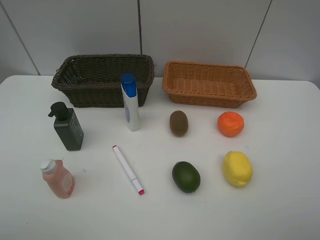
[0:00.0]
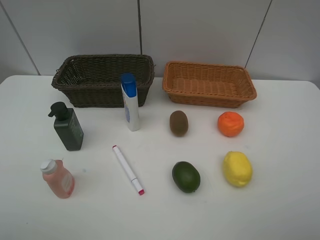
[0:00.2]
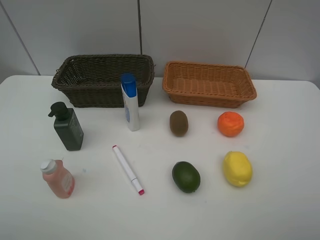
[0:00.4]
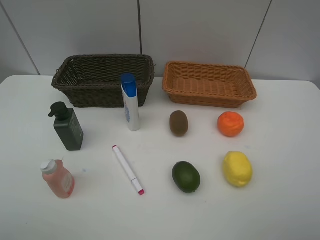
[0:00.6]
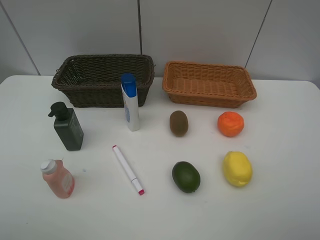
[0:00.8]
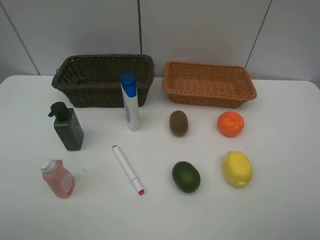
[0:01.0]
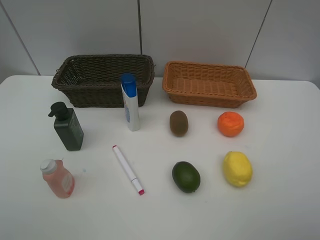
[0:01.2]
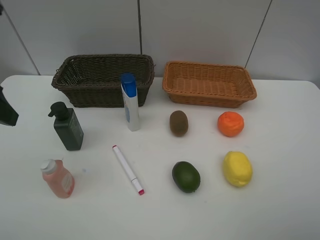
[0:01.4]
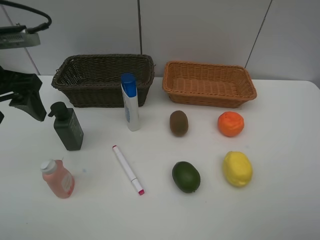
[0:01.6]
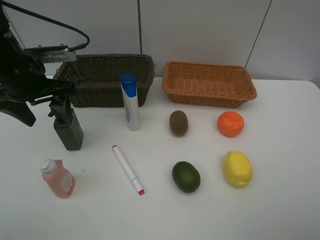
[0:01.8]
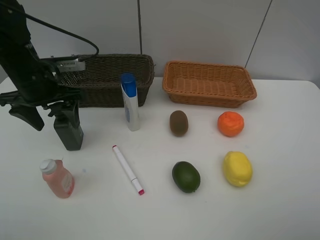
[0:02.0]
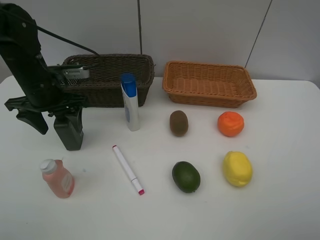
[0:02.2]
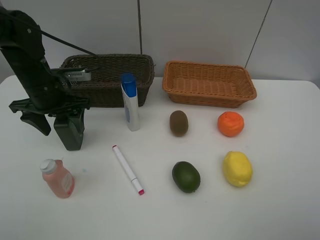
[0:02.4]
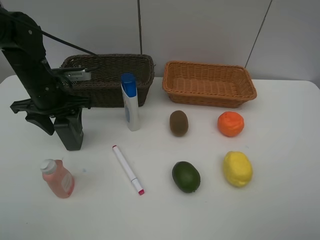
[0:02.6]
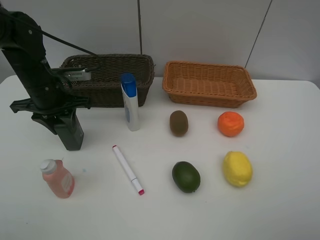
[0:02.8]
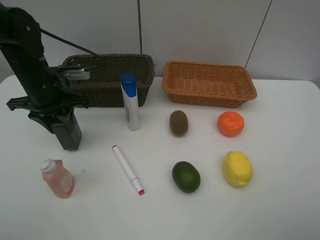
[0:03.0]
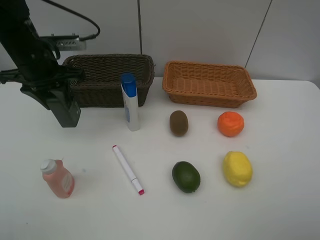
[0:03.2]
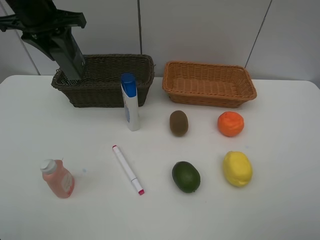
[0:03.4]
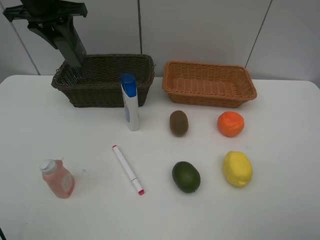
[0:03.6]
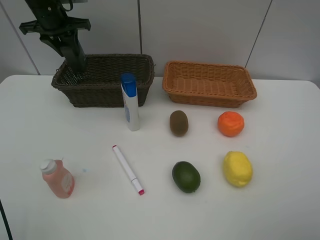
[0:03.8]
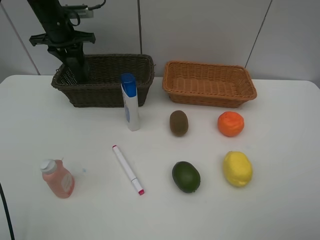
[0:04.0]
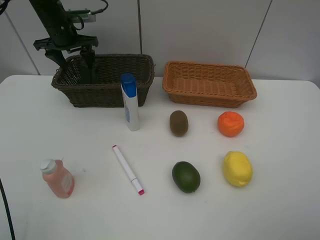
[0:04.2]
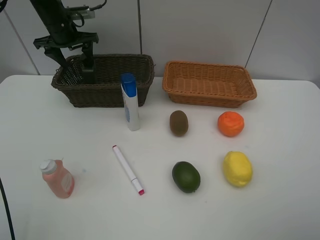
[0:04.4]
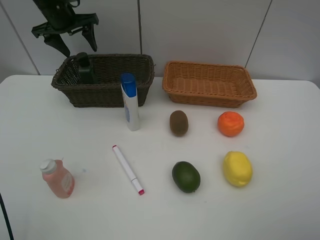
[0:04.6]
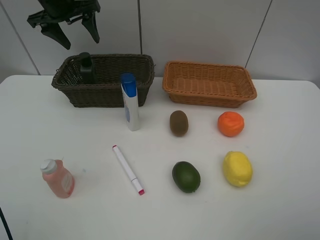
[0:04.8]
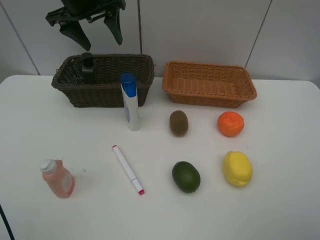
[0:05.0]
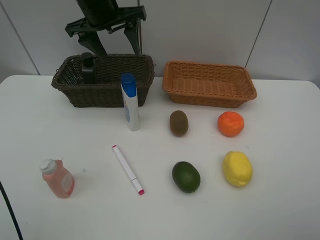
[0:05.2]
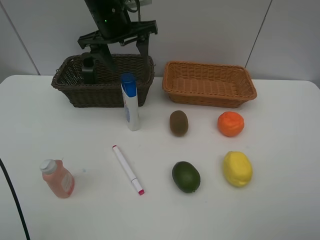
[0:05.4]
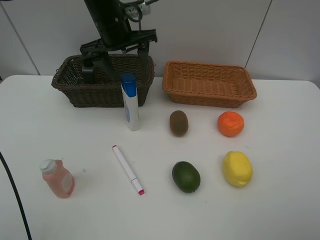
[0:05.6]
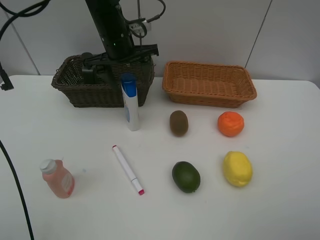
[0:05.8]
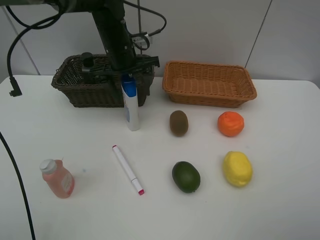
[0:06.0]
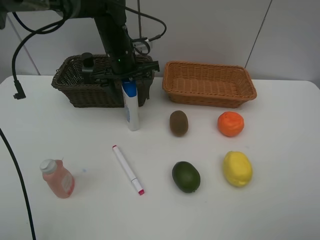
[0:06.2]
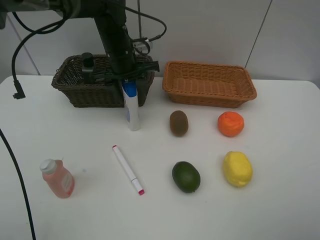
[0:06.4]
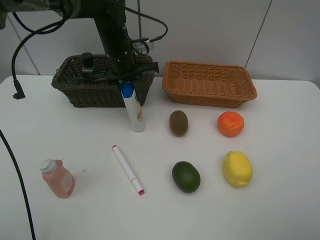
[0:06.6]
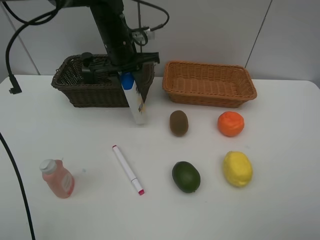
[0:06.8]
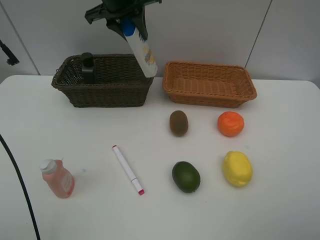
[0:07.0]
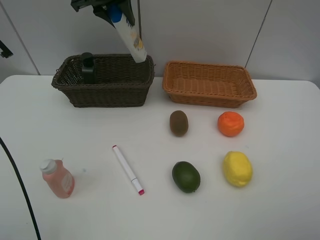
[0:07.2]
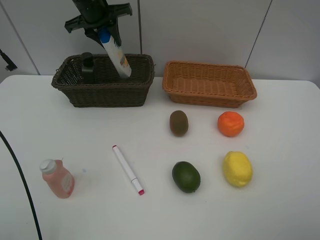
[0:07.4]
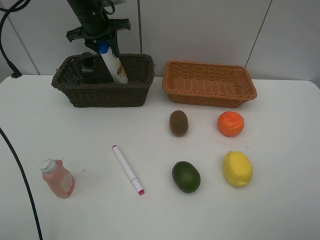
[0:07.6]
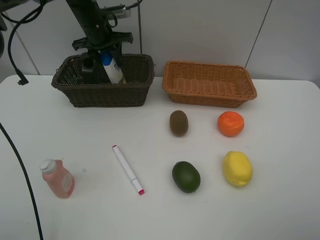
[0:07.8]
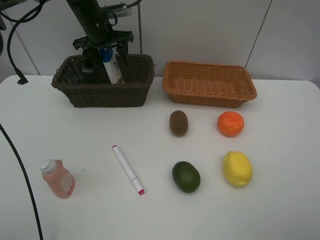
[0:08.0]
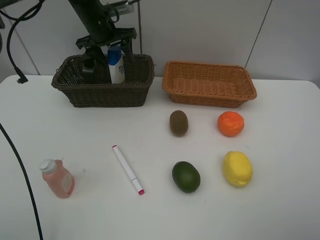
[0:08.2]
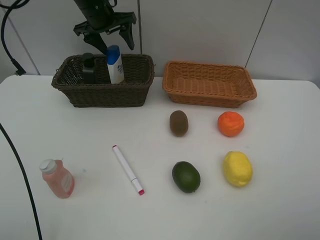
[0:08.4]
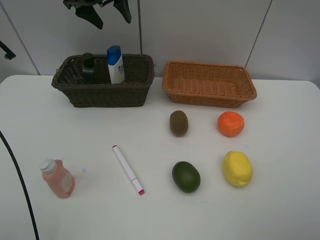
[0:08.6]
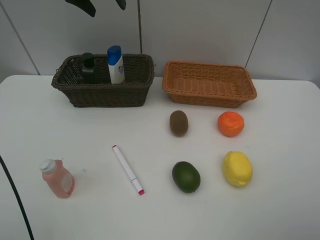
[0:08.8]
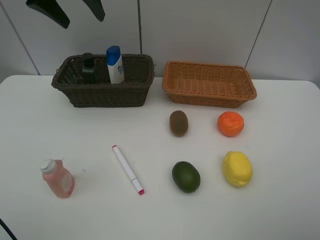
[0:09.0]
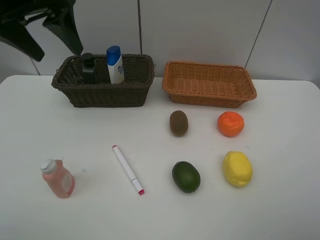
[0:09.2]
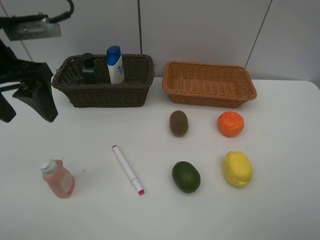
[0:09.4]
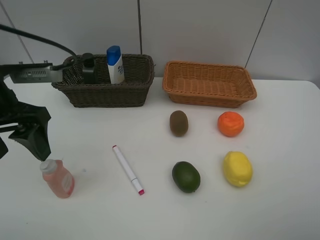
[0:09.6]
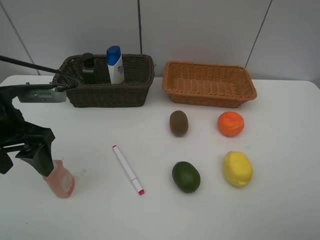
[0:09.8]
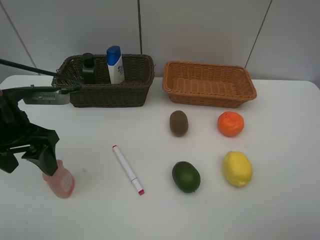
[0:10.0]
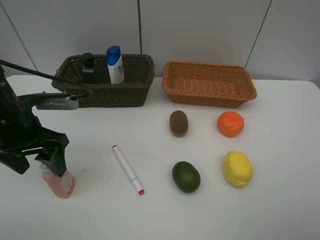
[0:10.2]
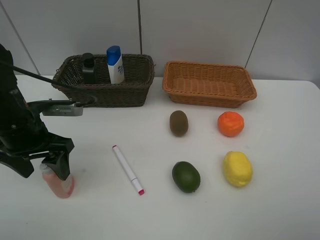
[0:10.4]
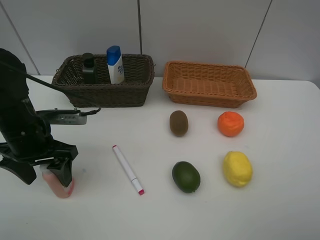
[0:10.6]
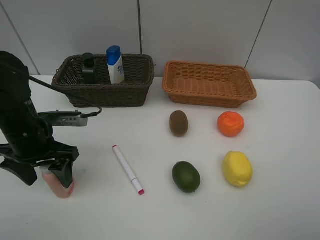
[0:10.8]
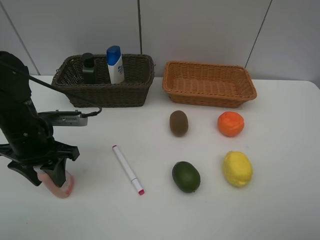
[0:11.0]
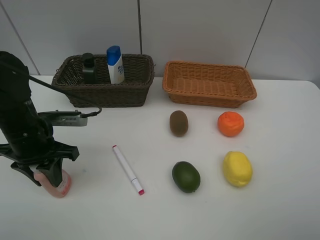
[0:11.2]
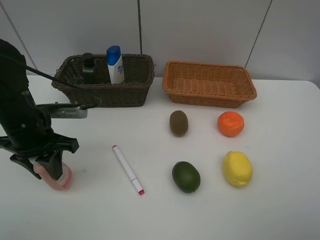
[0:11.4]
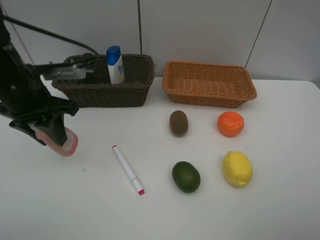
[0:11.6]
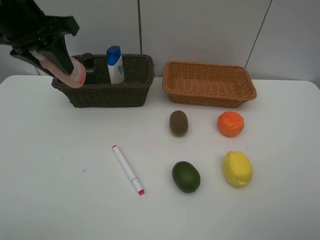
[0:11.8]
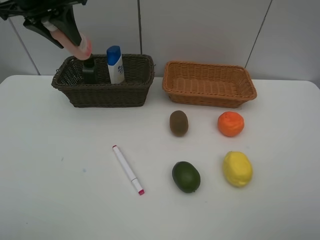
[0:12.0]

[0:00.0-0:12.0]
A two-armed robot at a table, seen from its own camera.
Task of the whole recording: Place multiple objects separately in different baskets.
Step, 0:00.0 to 0:03.0: Pick up the hard facial cleanser with left gripper.
Step, 0:03.2 to 0:04.4: Place the hard facial cleanser in the dark basket with left gripper.
Step, 0:04.6 to 0:06.8: Pick up the shampoo with left gripper.
Step, 0:07.0 to 0:08.4: Place the shampoo in the dark basket with left gripper.
Step, 0:08.6 to 0:11.4: Pick up the laundry detergent with left gripper.
0:00.0 to 0:01.6: The left gripper shifts approximately 25 cm forward.
0:01.6 to 0:03.0: The left gripper heads downward and forward, covering roughly 10 cm, and closes its fingers.
0:03.0 to 0:04.4: The left gripper moves forward, some 20 cm, and opens.
0:04.4 to 0:06.0: The left gripper travels to the right and backward by roughly 20 cm.
0:06.0 to 0:07.6: The left gripper is displaced forward and to the left by some 10 cm, travels upward and back again, approximately 15 cm each way, and closes up.
0:07.6 to 0:09.0: The left gripper moves backward and upward, approximately 20 cm, and opens.
0:09.0 to 0:10.4: The left gripper travels downward and backward by about 25 cm.
0:10.4 to 0:12.0: The left gripper is displaced upward and forward by about 25 cm, and closes its fingers.

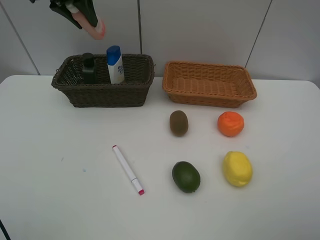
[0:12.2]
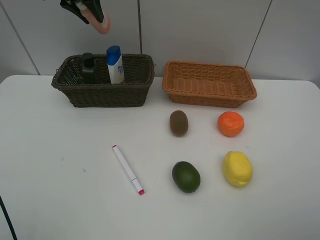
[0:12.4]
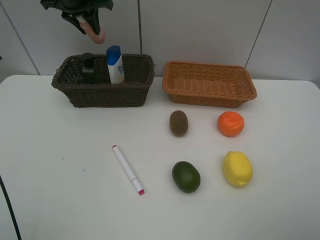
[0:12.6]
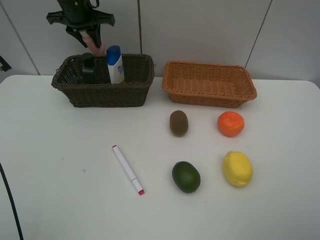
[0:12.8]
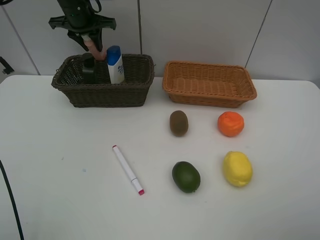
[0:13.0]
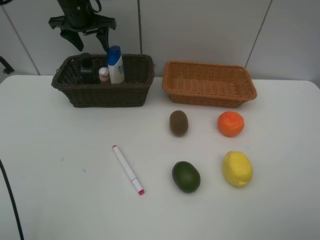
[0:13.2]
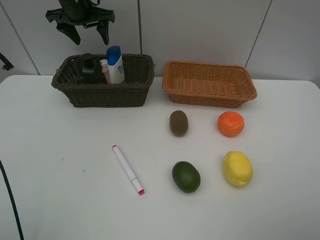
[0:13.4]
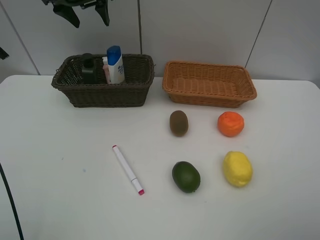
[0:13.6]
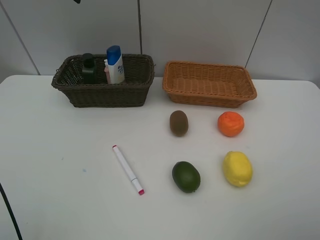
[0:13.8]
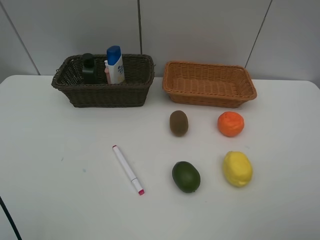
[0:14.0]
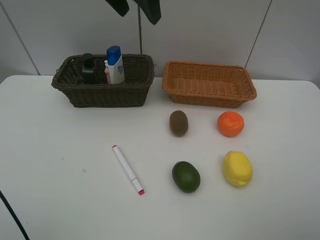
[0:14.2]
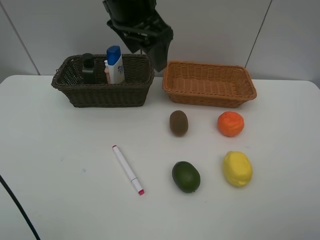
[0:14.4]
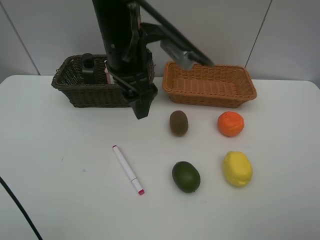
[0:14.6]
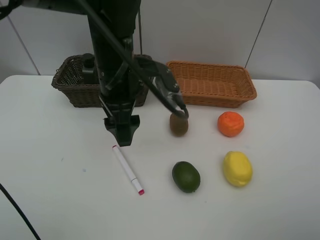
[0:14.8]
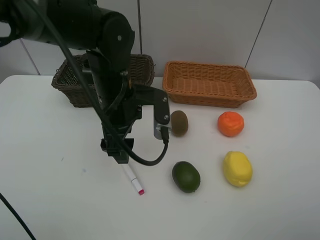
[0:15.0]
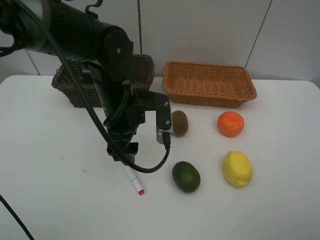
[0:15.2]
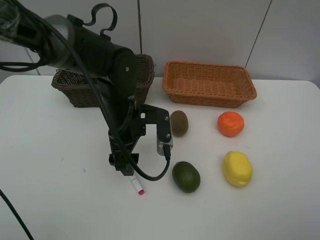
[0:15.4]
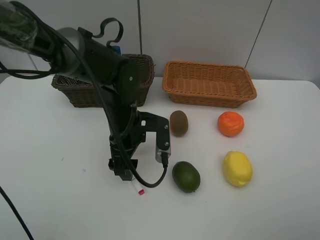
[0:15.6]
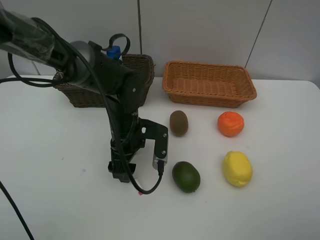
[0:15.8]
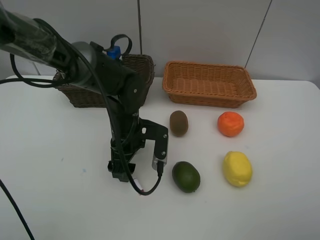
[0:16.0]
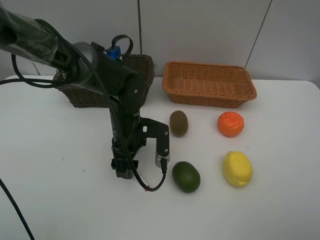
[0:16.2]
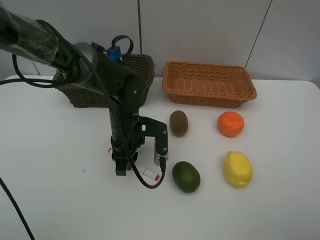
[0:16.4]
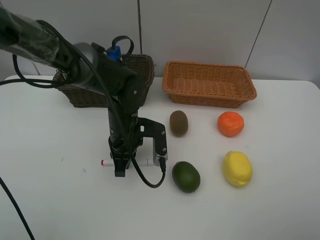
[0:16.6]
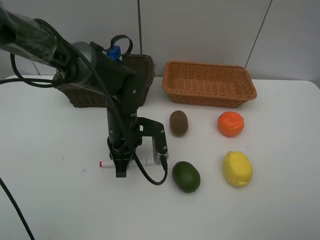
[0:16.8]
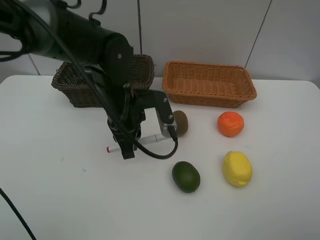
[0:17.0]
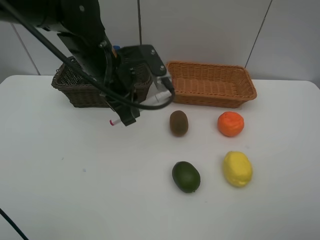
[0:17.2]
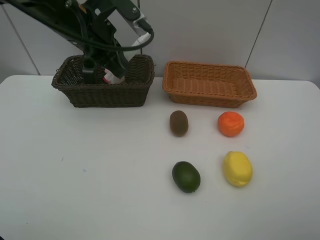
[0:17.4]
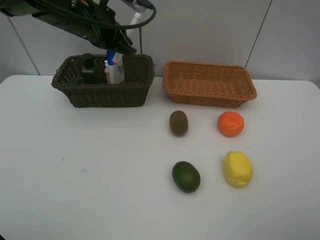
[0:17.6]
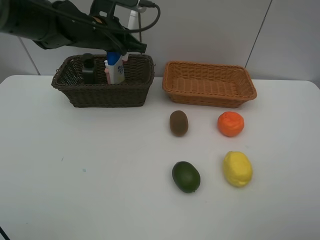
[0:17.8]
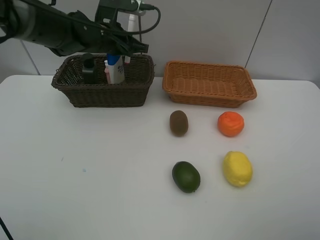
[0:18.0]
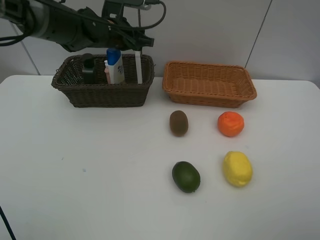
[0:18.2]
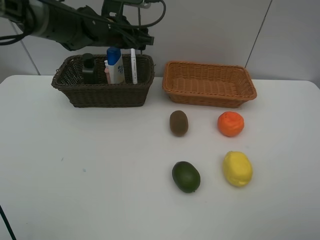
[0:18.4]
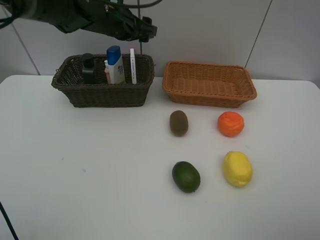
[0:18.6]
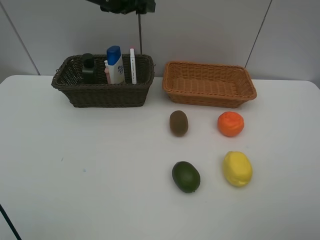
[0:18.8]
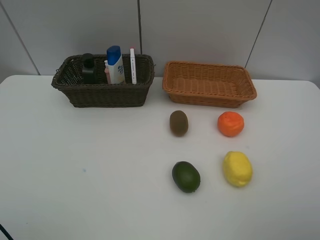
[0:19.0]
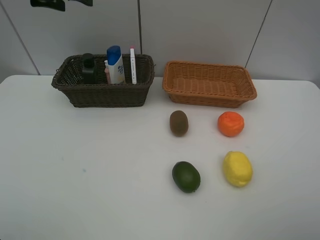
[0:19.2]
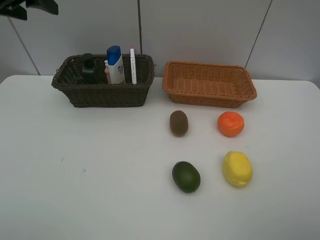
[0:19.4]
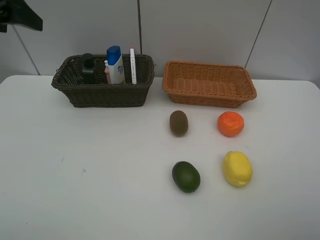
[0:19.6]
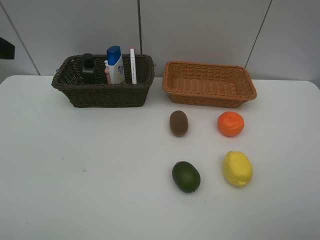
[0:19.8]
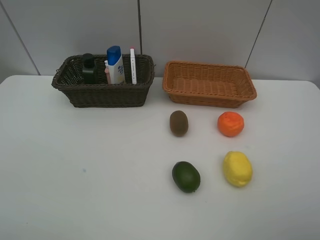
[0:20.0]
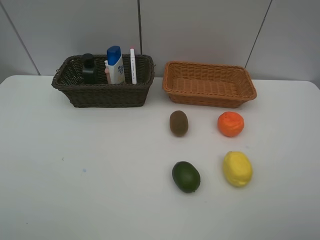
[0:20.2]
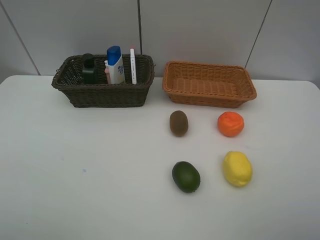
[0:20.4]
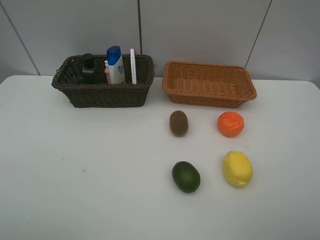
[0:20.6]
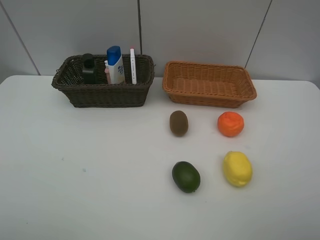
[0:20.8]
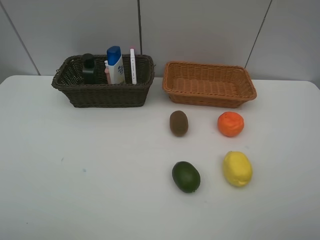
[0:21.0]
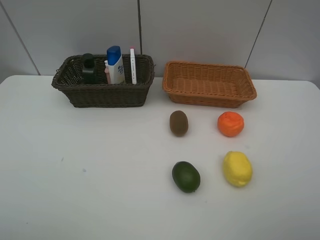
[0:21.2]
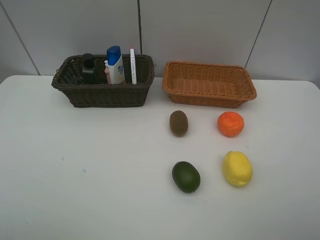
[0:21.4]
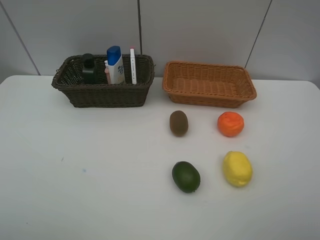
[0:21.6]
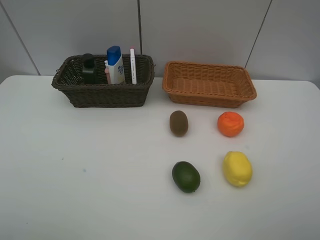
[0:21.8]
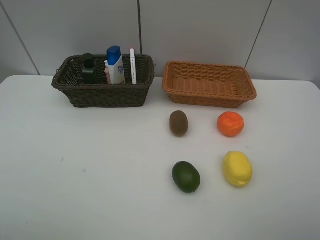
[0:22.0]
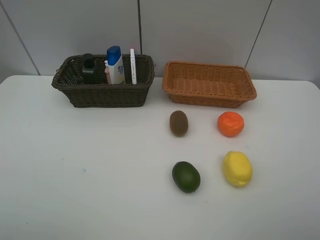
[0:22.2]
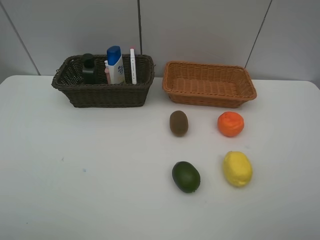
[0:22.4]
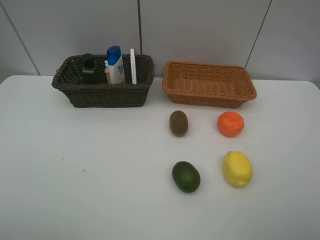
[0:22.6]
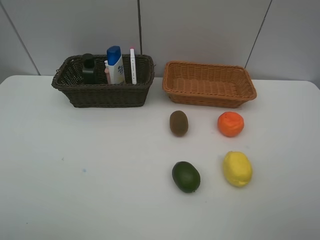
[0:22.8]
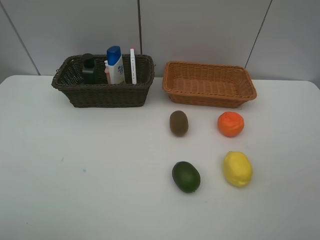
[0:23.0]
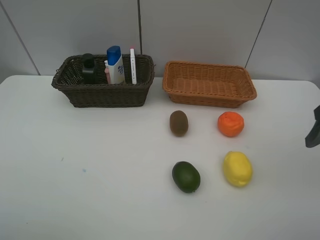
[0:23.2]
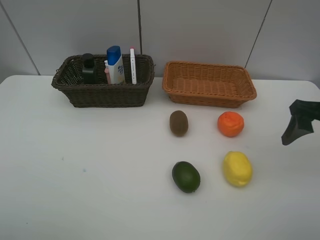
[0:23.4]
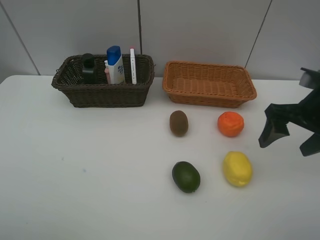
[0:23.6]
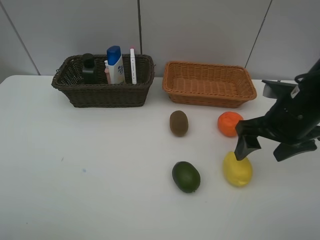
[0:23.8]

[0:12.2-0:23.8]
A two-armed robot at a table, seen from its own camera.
Task of the whole recording: Place multiple objects separately in different baskets.
Step, 0:12.2 to 0:13.2: Place the laundry detergent in the dark basket with left gripper.
Step, 0:13.4 to 0:16.8: Pick up the red marker with left gripper.
Step, 0:17.0 to 0:18.4: Place the red marker in the dark basket with left gripper.
0:12.2 to 0:13.6: The left gripper goes downward and returns, approximately 10 cm each way, and opens.
0:13.6 to 0:15.0: The left gripper moves backward, downward and to the right, about 30 cm.
0:15.0 to 0:16.6: The left gripper moves downward, about 10 cm, and closes.
0:16.6 to 0:18.0: The left gripper heads forward and upward, covering approximately 20 cm.
0:18.0 to 0:19.4: The left gripper travels to the left, upward and backward by some 25 cm, and opens.
0:19.4 to 0:21.0: The left gripper goes about 35 cm backward.
0:22.4 to 0:23.8: The right gripper heads forward and downward, covering roughly 25 cm.
